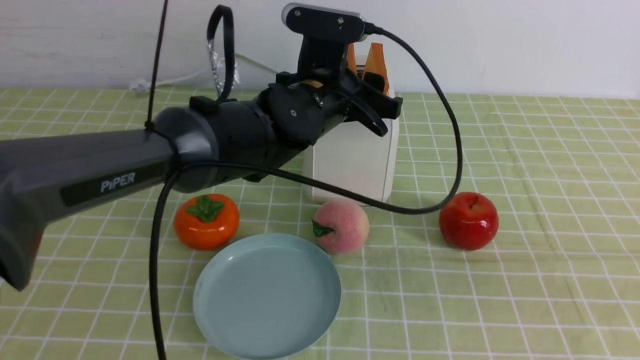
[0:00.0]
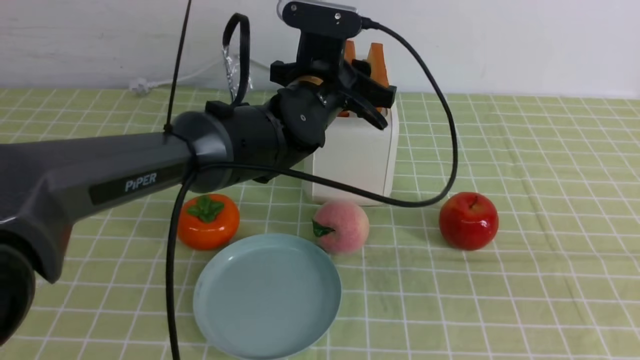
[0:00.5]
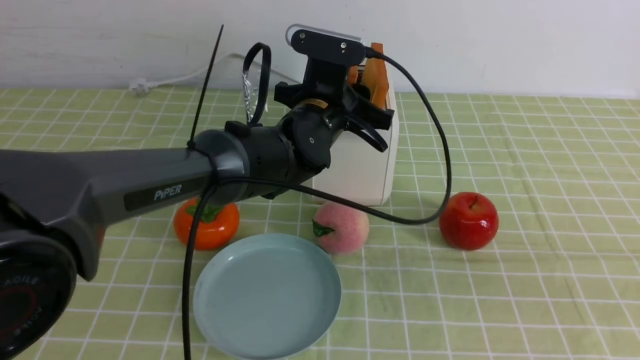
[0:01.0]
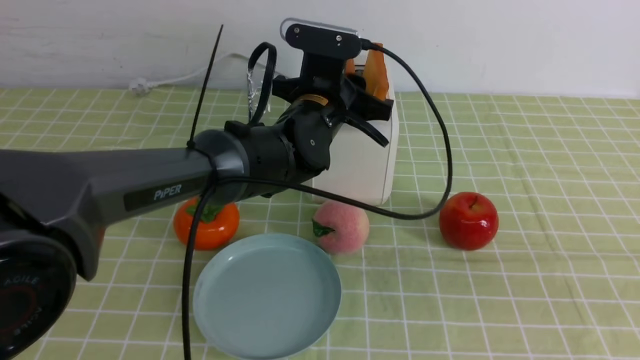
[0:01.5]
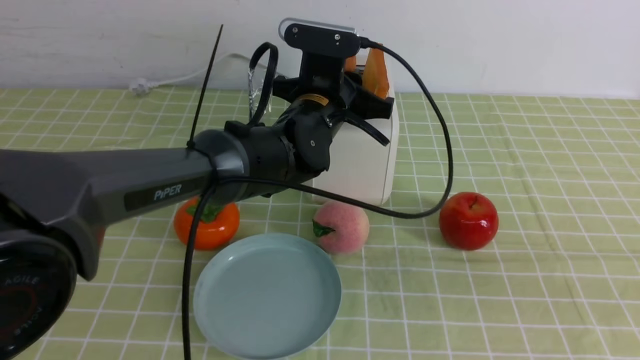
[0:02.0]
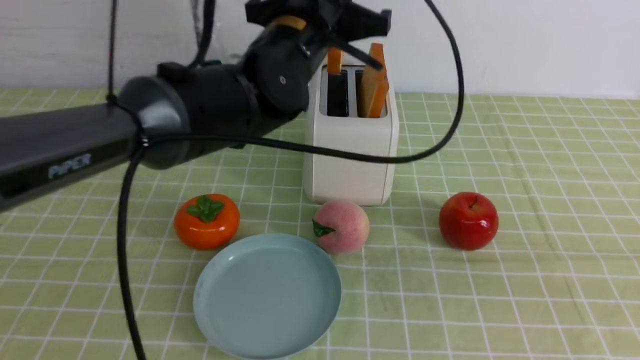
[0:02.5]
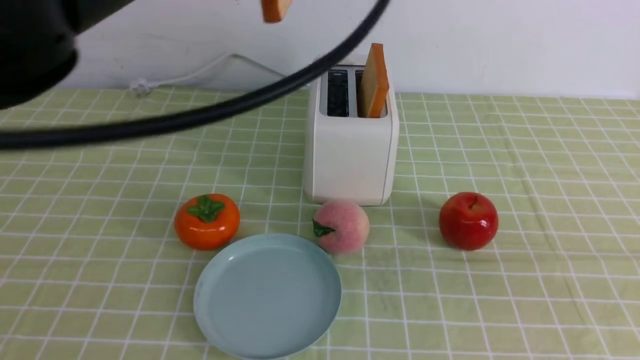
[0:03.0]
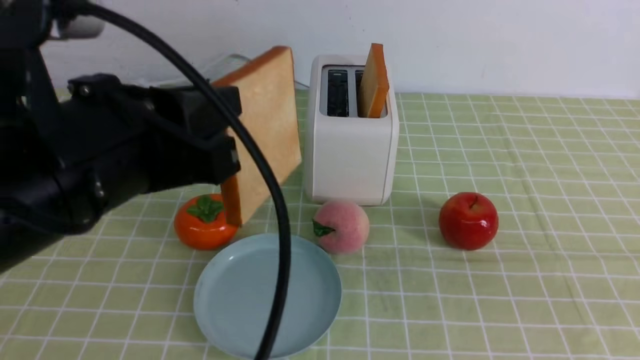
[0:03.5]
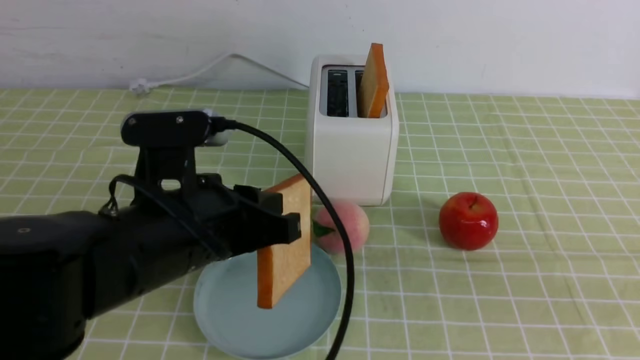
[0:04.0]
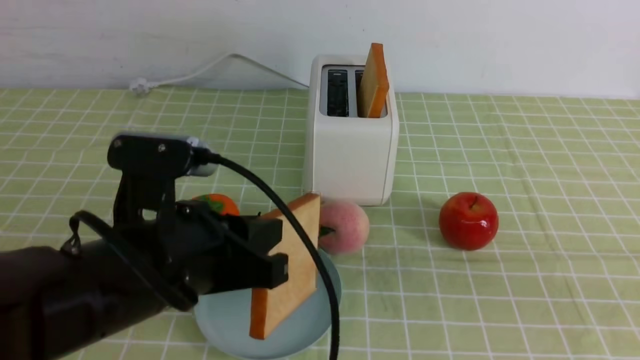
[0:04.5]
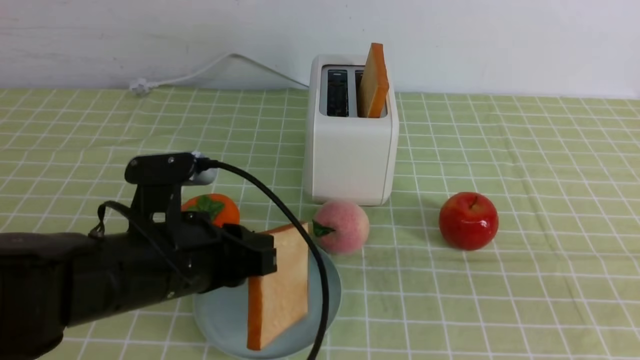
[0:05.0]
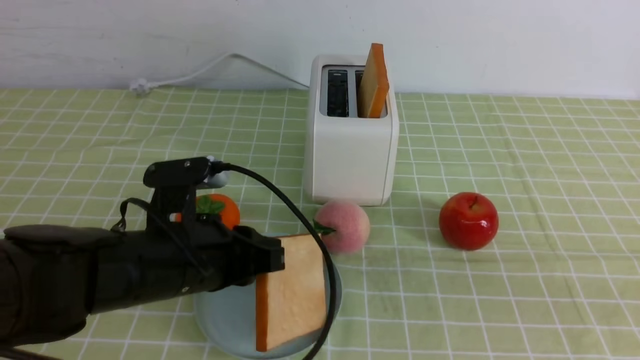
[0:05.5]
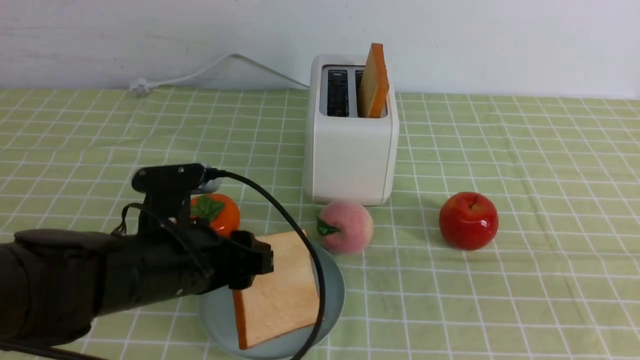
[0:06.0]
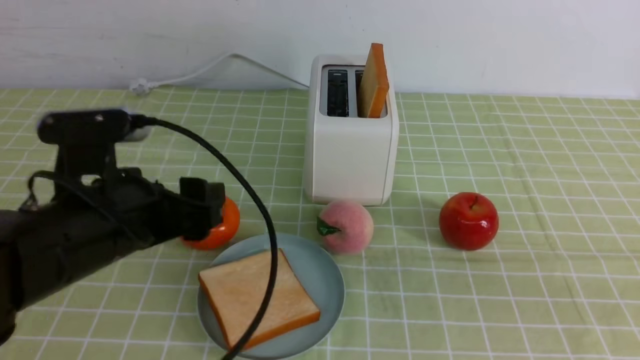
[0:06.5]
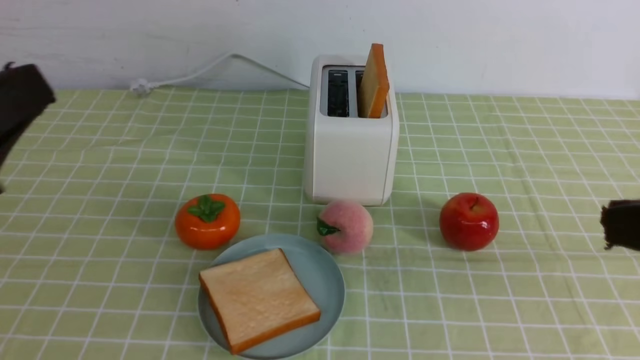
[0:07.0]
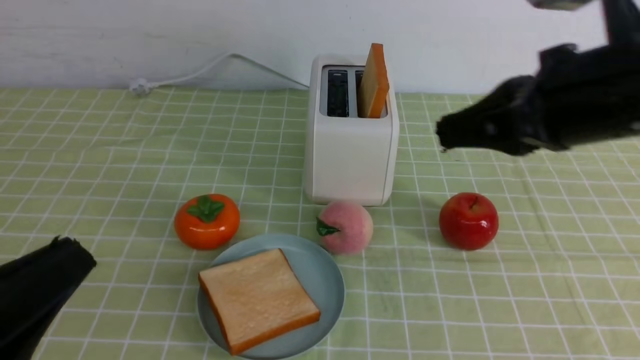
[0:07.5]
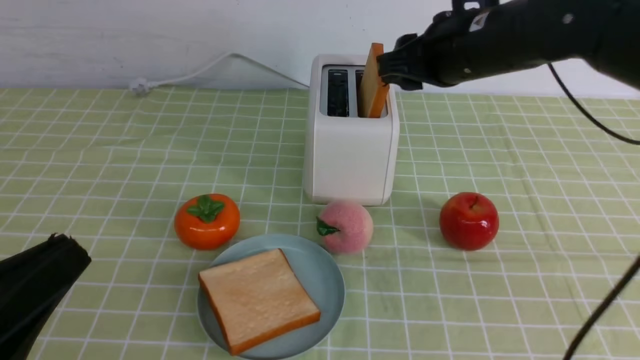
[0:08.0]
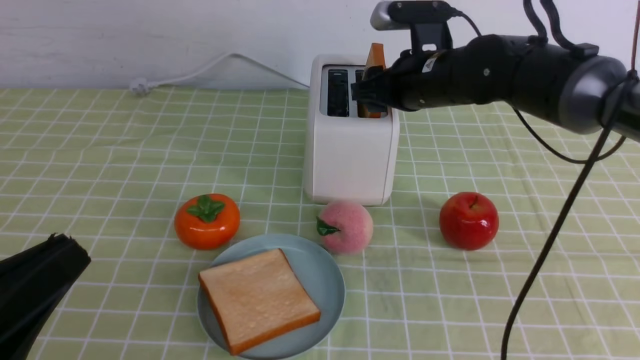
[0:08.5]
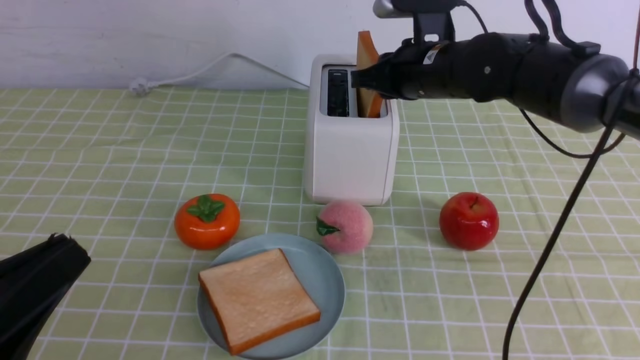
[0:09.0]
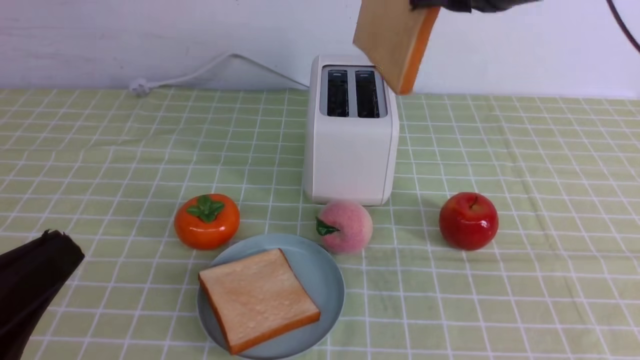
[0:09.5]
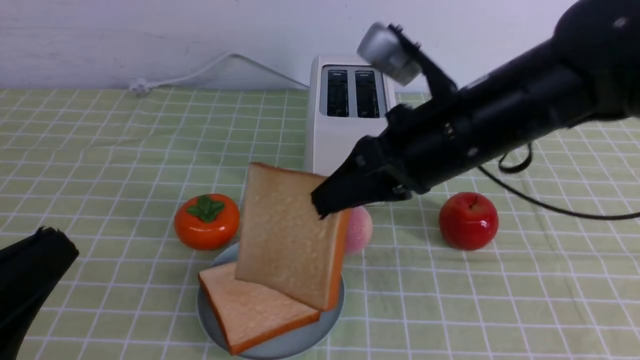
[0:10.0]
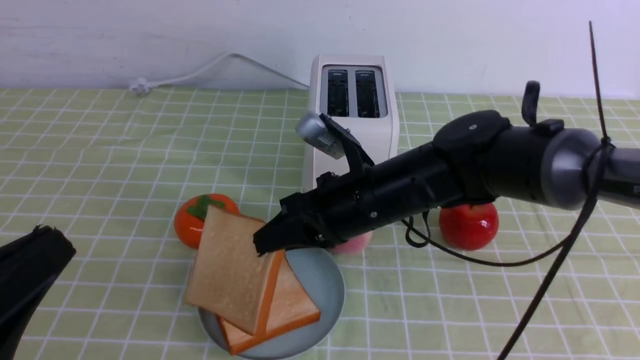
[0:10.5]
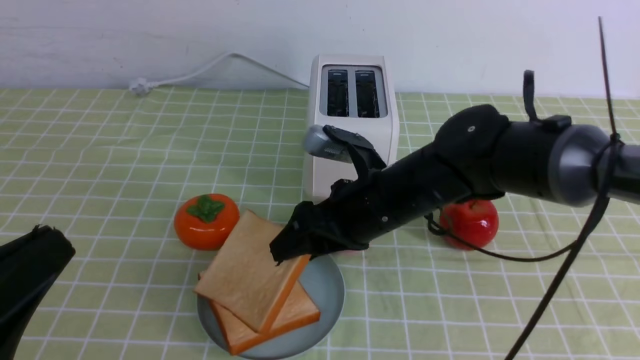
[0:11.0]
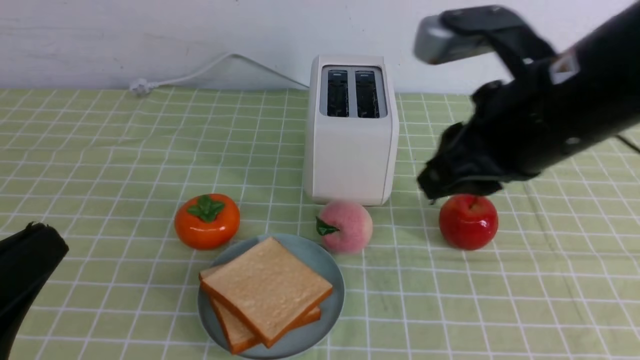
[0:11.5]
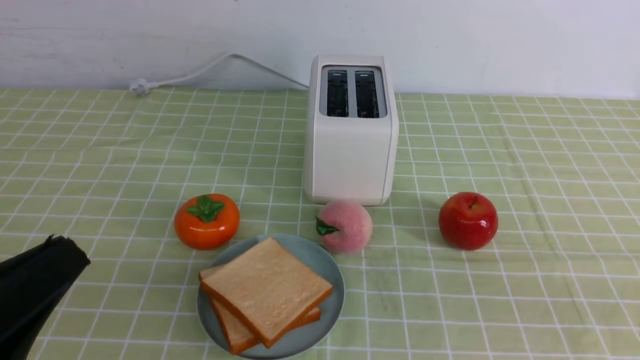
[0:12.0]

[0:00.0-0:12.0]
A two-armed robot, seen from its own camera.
Task of the whole recording: take toasted bread from bread machine on green coffee tablecloth place on plate.
Step, 0:00.0 to 0:02.0: use the left arm to take out a slice of bread.
Step, 0:03.0 to 0:06.0: use the left arm to put a slice of bread into the empty plate.
Step, 0:06.5 to 0:09.0: use the right arm to take out a slice of bread.
Step, 0:09.5 to 0:11.5: use the right arm to put a slice of bread into the plate.
0:00.0 to 0:02.0: The left gripper closes up.
0:02.0 to 0:04.0: The left gripper travels backward and to the left by about 25 cm.
0:04.0 to 0:06.0: The left gripper heads downward, covering about 10 cm, and opens.
0:06.0 to 0:08.0: The left gripper travels backward, to the left and upward by about 20 cm, and closes its fingers, while the right gripper shifts about 35 cm forward, and opens.
0:08.0 to 0:10.0: The right gripper goes about 10 cm backward, and closes its fingers.
0:10.0 to 0:12.0: The right gripper moves backward and to the right, about 25 cm, and opens, then closes once more.

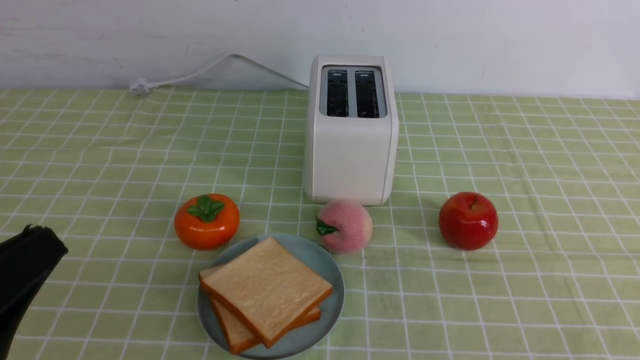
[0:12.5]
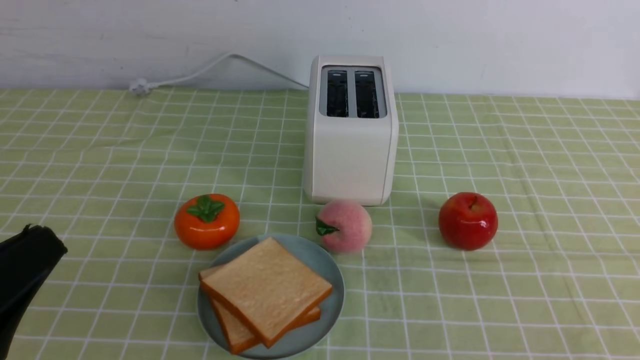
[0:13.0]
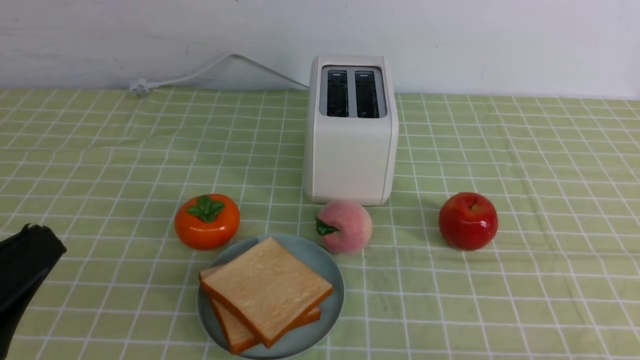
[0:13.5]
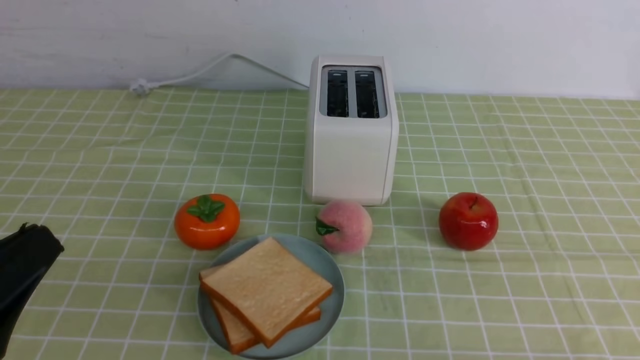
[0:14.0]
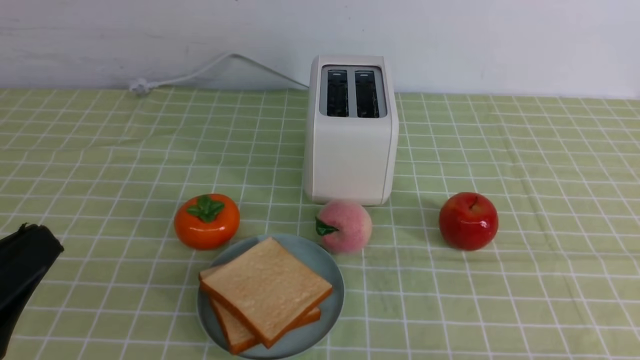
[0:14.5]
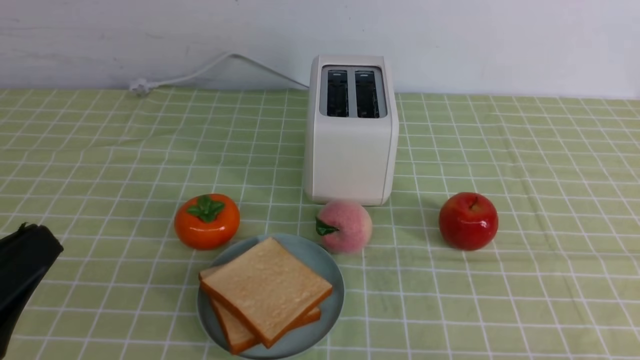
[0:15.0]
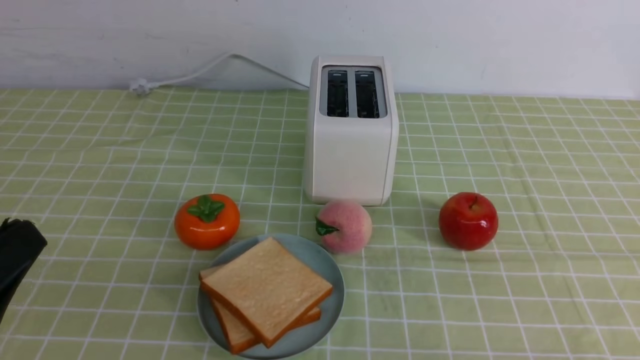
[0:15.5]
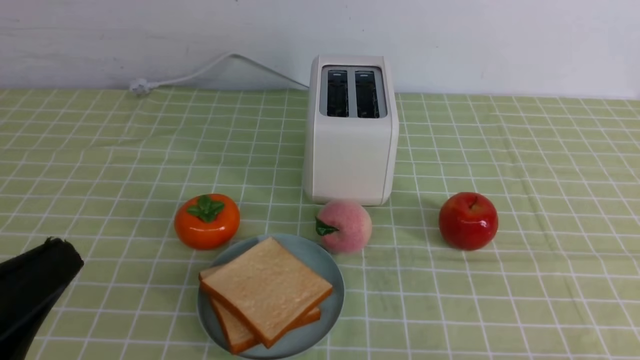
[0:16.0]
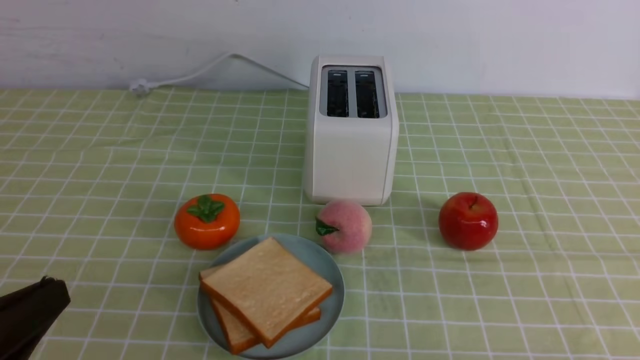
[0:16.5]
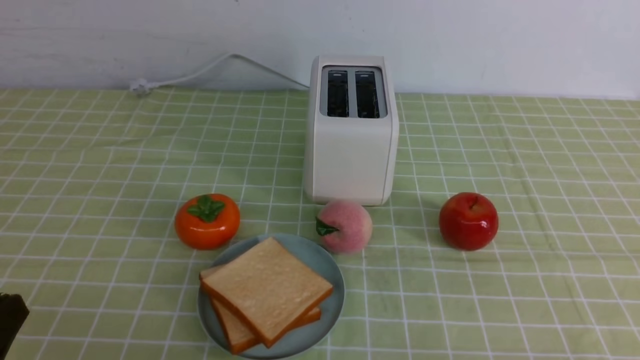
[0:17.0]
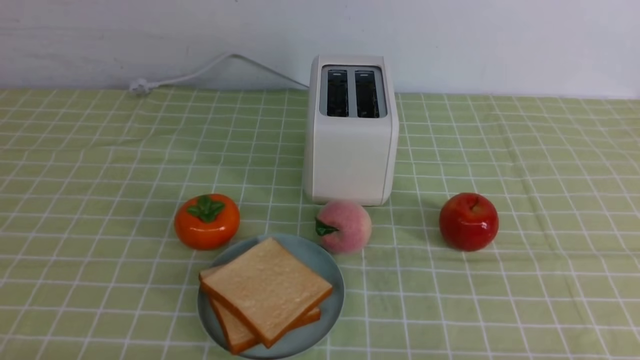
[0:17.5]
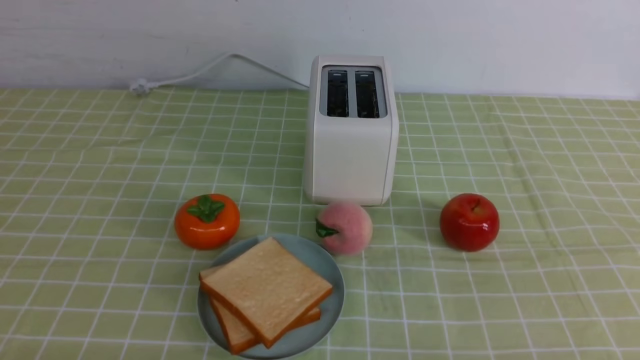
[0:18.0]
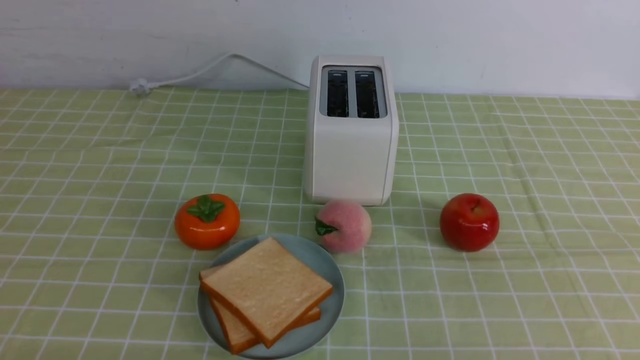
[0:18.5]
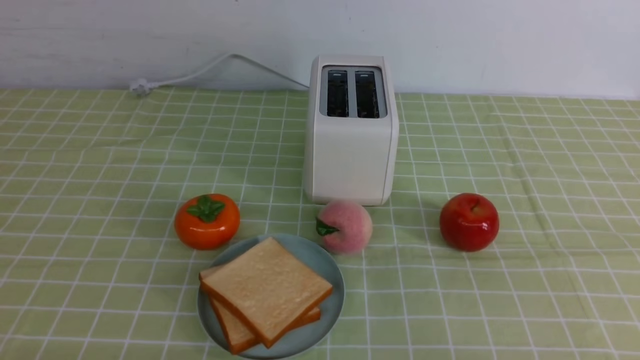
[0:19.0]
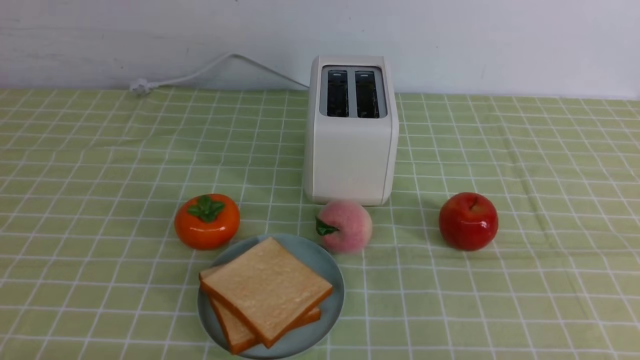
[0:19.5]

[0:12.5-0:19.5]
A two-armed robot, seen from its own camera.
Task of the whole recording: take toasted bread from bread machine on green coffee tablecloth place on plate.
0:14.5 to 0:16.0: There are only small adjustments of the grippers.
0:16.0 to 0:17.5: The left gripper is displaced downward by about 10 cm.
0:17.5 to 0:19.5: Both grippers stay about where they are.
